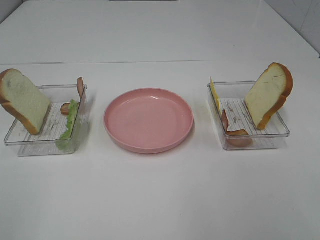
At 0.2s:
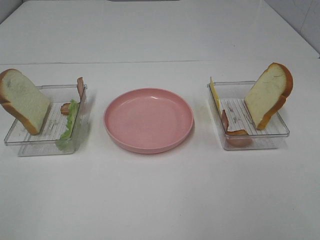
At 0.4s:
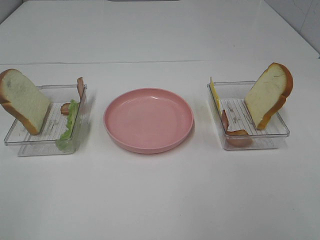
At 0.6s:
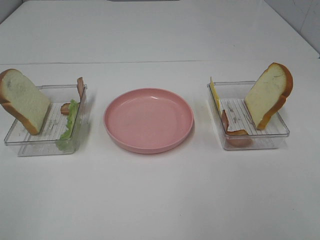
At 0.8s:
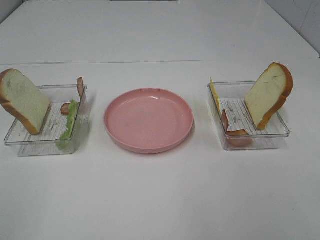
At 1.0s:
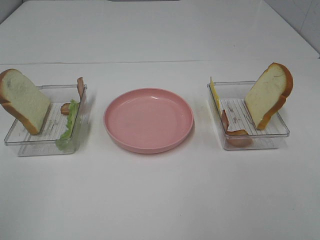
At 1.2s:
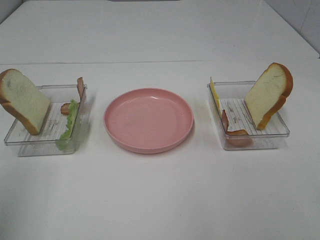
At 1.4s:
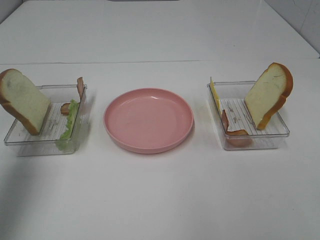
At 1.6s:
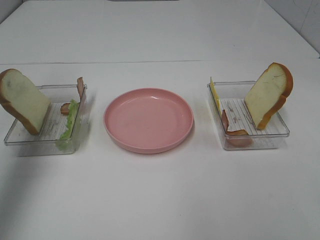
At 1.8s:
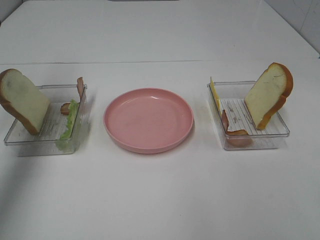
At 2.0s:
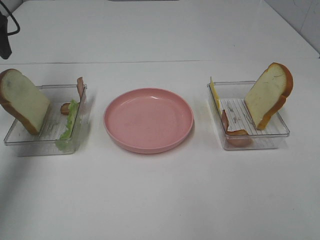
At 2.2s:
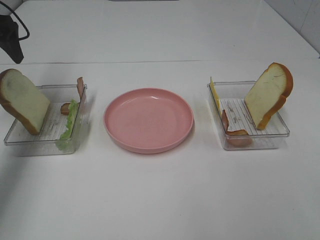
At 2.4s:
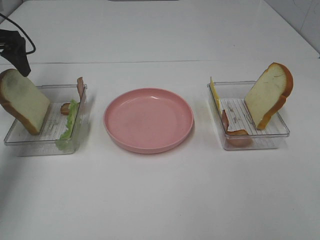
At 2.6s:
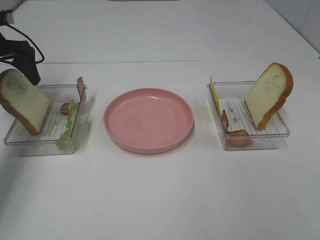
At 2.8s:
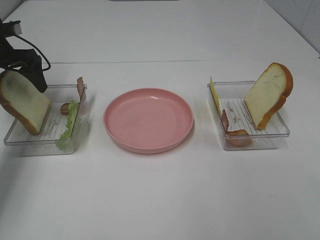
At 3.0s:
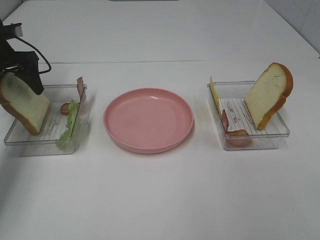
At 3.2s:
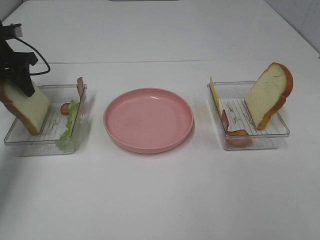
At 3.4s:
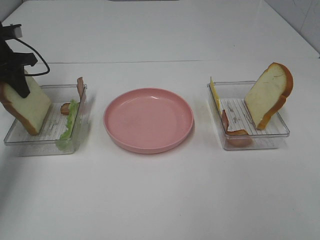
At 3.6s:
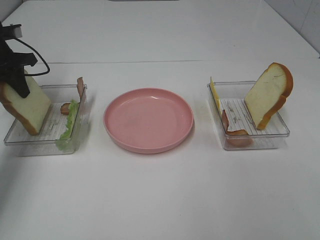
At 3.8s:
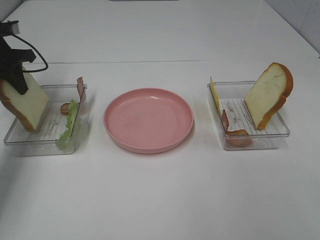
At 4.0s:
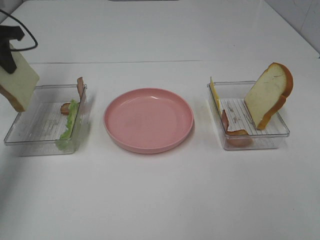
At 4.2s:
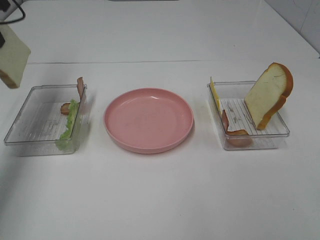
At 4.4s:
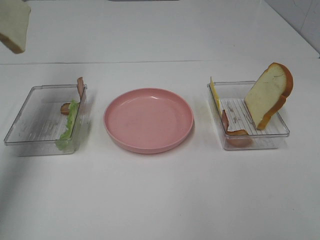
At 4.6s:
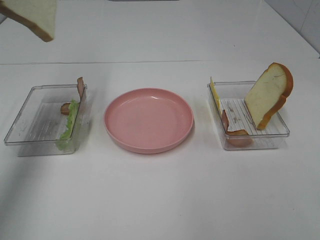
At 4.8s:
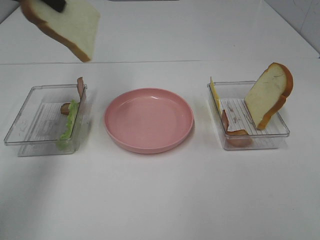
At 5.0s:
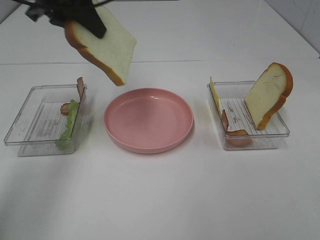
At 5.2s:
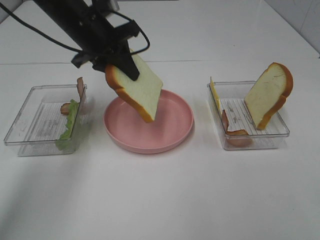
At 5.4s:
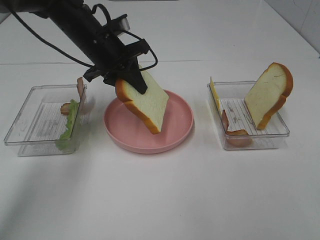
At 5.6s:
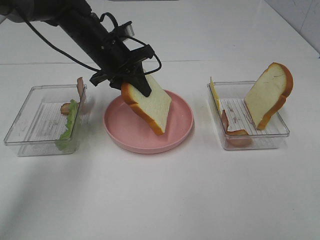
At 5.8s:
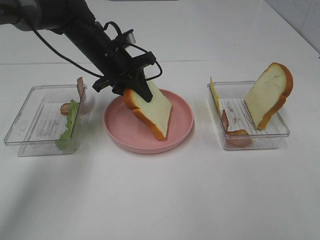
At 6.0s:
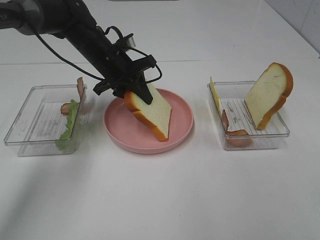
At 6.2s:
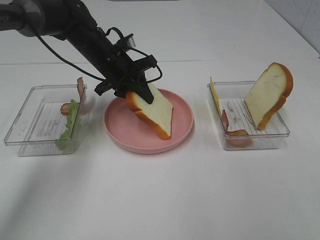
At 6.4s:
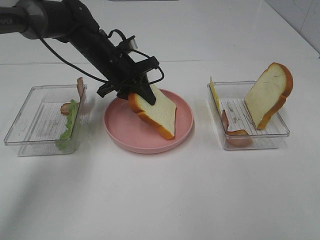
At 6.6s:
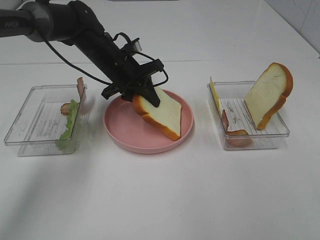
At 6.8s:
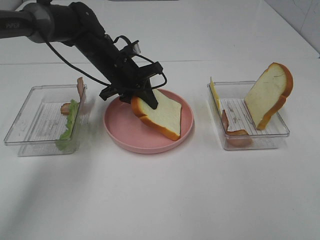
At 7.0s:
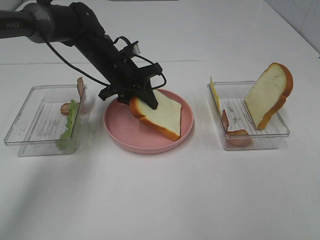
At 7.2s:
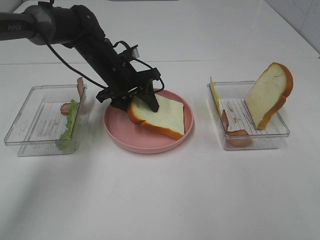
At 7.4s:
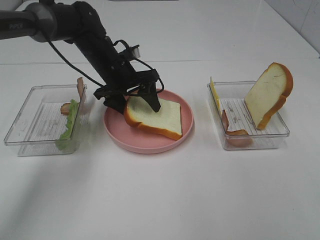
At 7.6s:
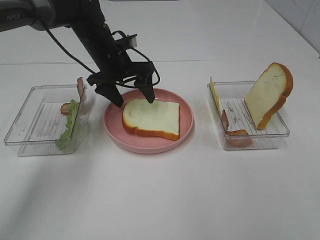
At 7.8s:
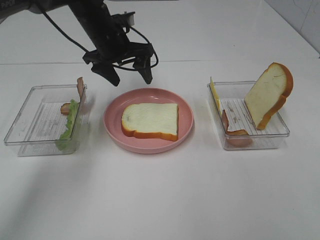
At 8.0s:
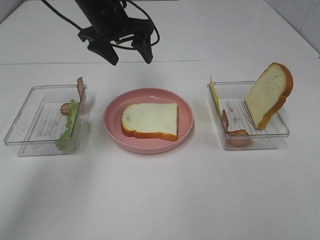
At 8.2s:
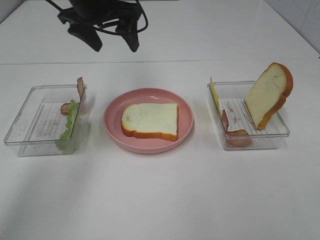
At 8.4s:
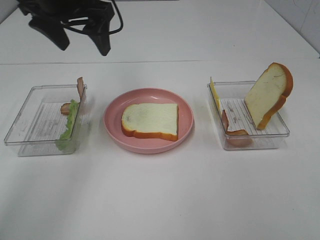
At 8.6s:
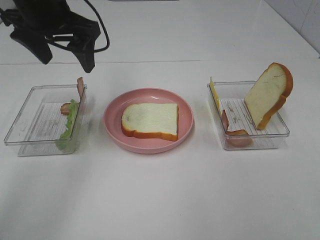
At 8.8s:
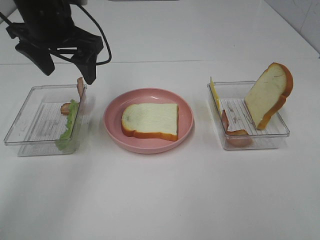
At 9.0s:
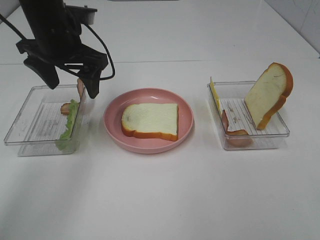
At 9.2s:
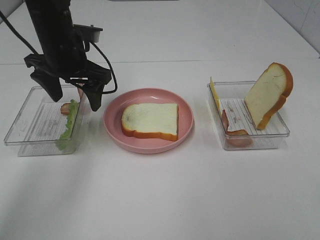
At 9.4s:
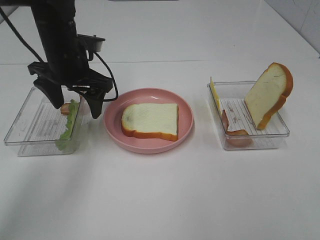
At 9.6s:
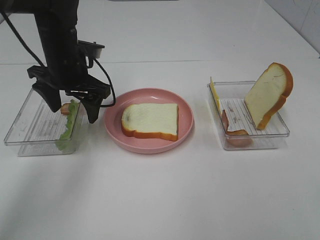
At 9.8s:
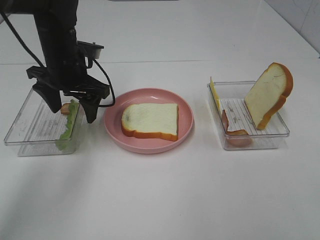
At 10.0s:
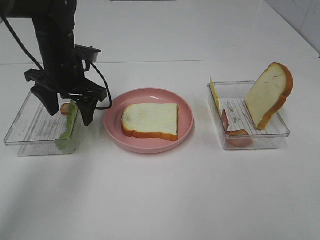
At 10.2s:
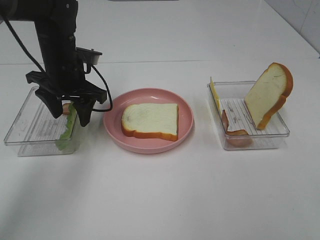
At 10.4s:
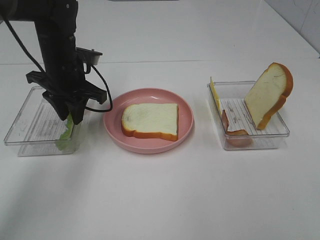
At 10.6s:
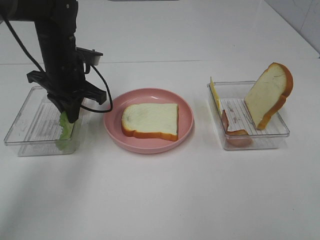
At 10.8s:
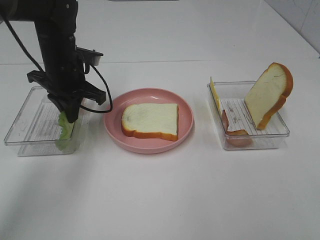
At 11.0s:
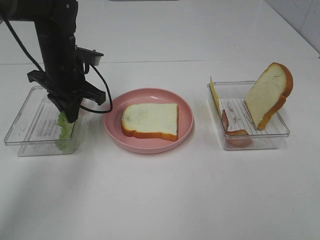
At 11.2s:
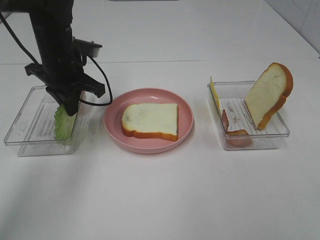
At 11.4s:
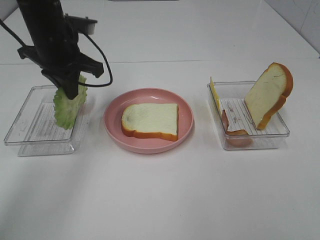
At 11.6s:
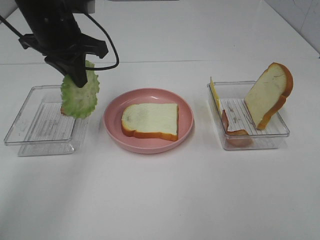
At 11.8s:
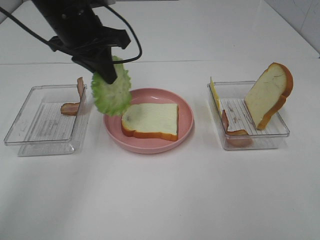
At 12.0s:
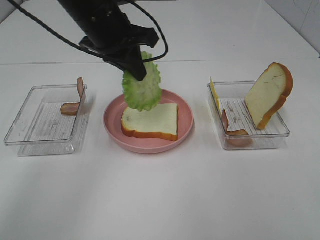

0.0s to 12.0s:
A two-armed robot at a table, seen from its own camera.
Task of the whole recording: Make sandwiches.
Step, 0.0s to 3.6s: Left hand:grab the bread slice.
Step, 3.8s to 7.6s: Left hand:place the bread slice on the plate.
Step, 7.8s to 10.6s: Left hand:grab the lettuce slice.
0.0s to 1.6s: The left gripper heads forward, covering some 30 cm.
1.6s to 3.0s: The left gripper heads downward and forward, covering some 25 cm.
3.0s to 4.4s: The left gripper shifts roughly 20 cm upward, and closes.
4.4s to 6.0s: The left gripper moves downward and to the right, some 30 cm.
6.0s to 7.6s: The left gripper opens up.
7.6s to 9.0s: The left gripper goes some 10 cm backward, upward and to the left.
9.0s to 10.4s: The left gripper goes about 5 cm downward, and closes its fingers.
10.4s to 12.0s: The left gripper shifts roughly 10 cm upward and to the right.

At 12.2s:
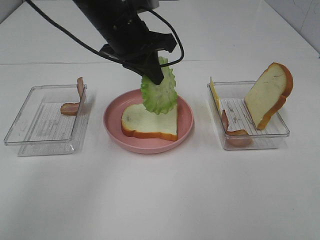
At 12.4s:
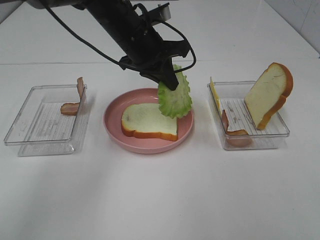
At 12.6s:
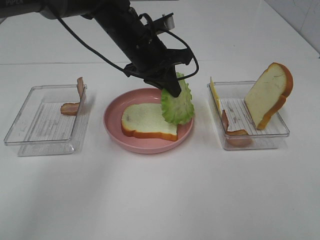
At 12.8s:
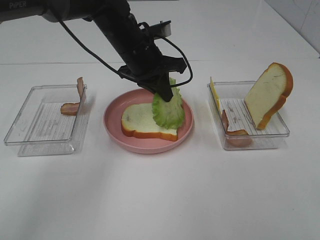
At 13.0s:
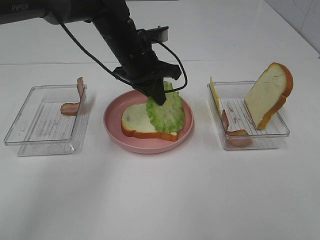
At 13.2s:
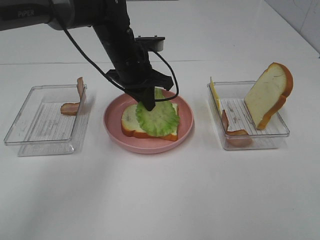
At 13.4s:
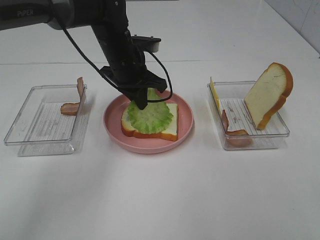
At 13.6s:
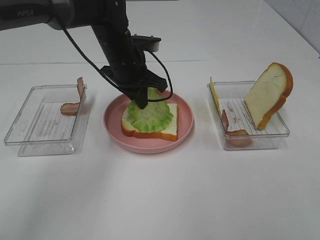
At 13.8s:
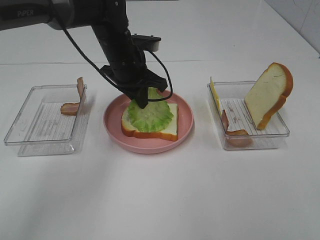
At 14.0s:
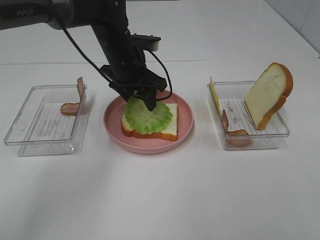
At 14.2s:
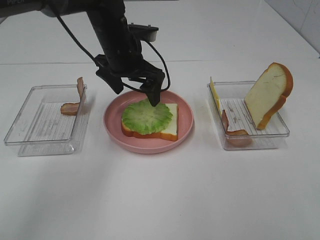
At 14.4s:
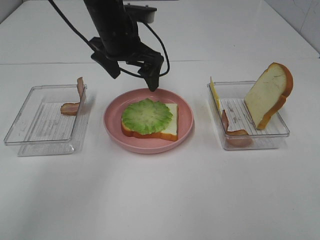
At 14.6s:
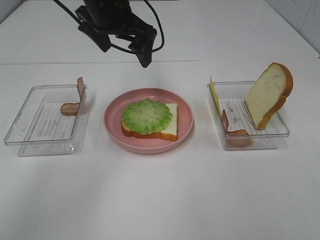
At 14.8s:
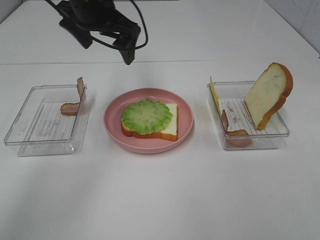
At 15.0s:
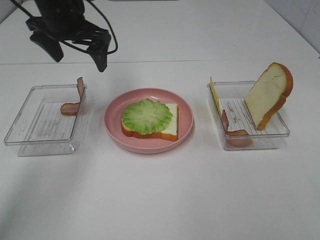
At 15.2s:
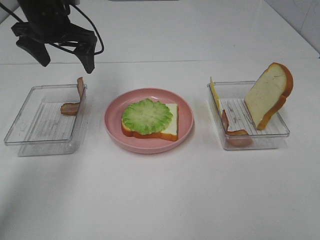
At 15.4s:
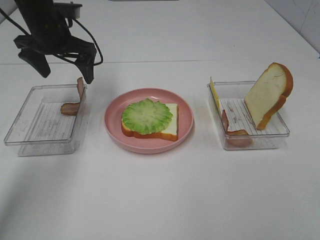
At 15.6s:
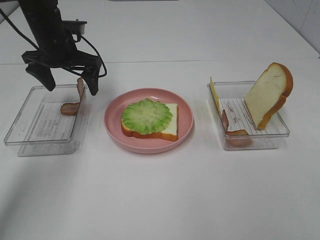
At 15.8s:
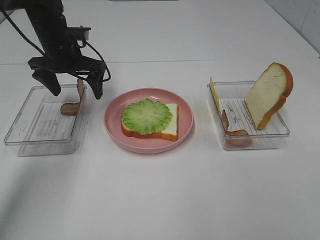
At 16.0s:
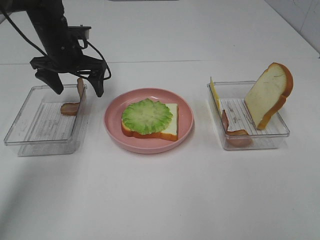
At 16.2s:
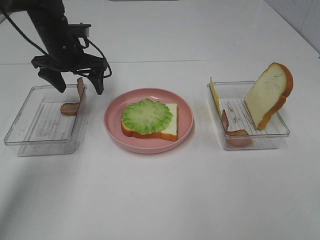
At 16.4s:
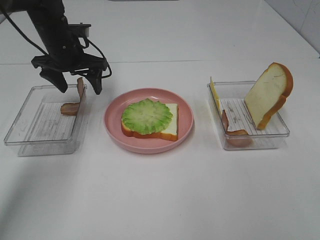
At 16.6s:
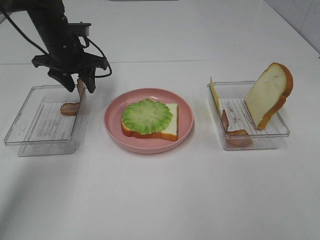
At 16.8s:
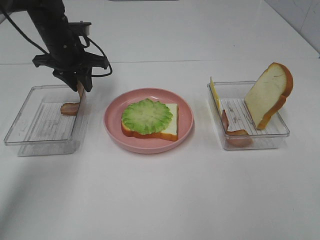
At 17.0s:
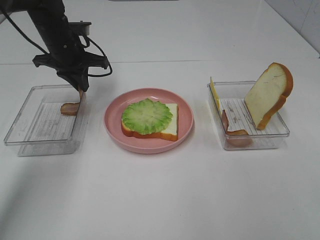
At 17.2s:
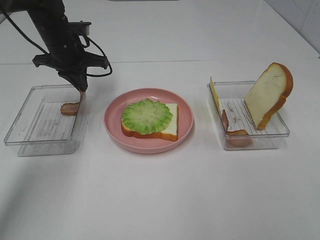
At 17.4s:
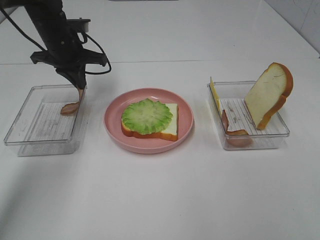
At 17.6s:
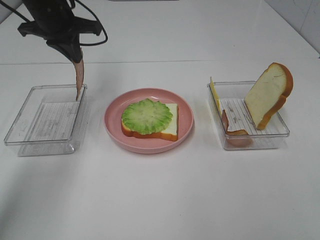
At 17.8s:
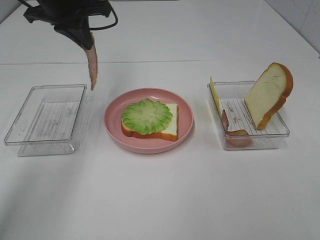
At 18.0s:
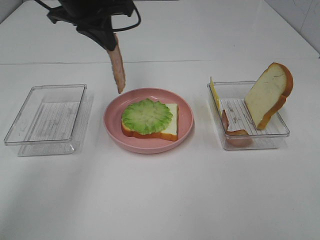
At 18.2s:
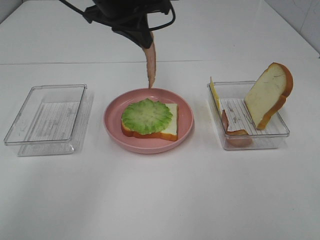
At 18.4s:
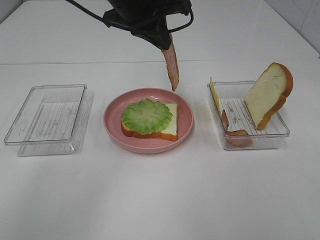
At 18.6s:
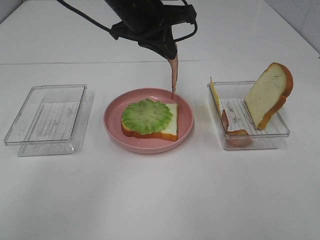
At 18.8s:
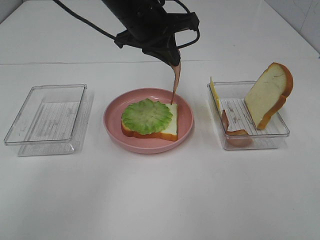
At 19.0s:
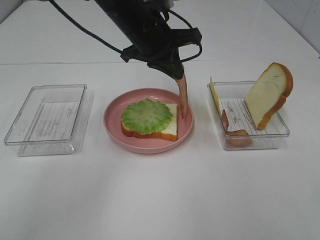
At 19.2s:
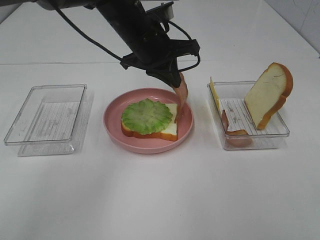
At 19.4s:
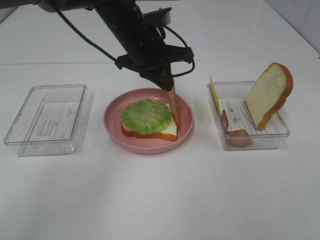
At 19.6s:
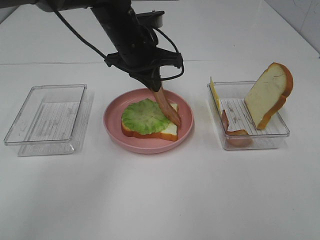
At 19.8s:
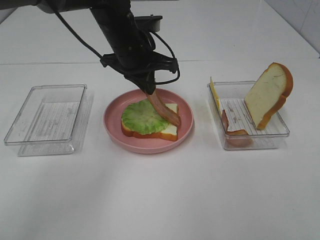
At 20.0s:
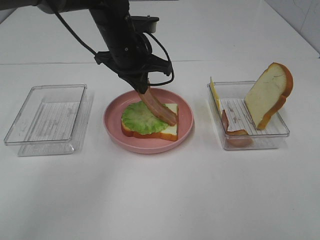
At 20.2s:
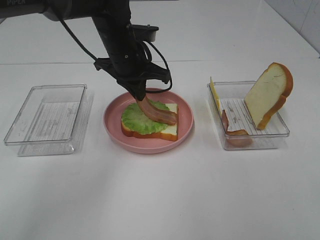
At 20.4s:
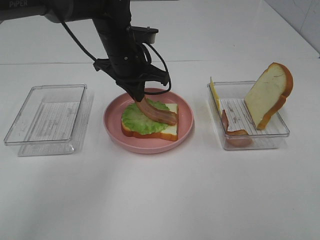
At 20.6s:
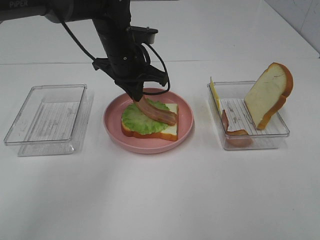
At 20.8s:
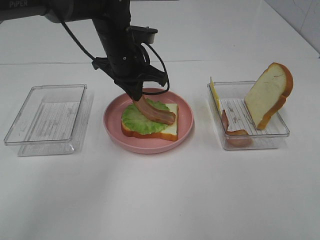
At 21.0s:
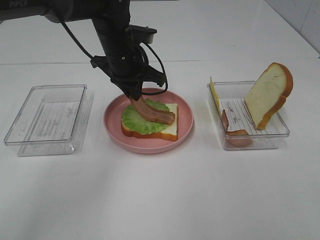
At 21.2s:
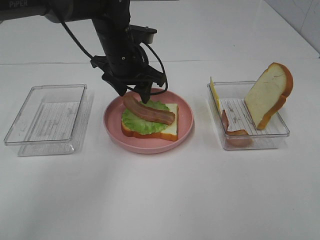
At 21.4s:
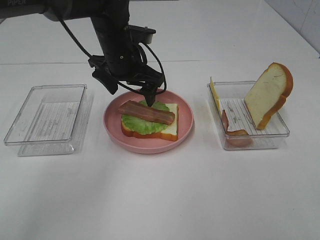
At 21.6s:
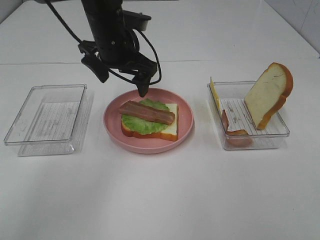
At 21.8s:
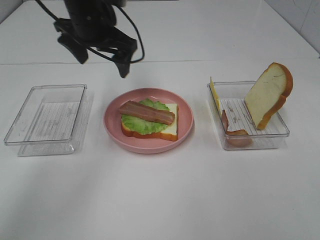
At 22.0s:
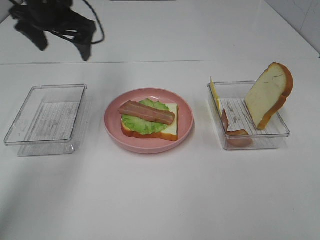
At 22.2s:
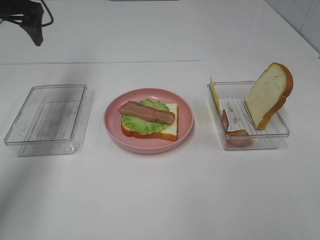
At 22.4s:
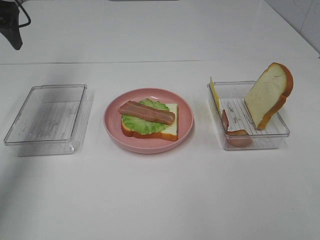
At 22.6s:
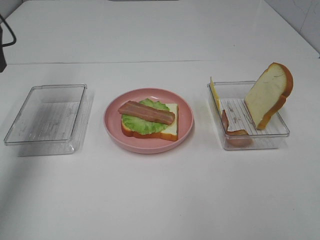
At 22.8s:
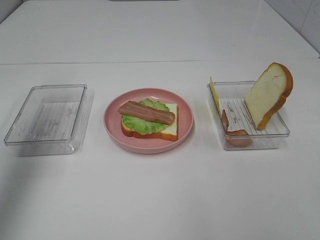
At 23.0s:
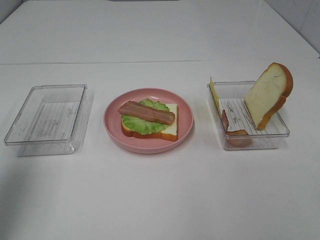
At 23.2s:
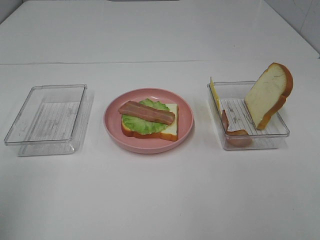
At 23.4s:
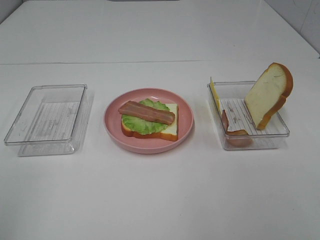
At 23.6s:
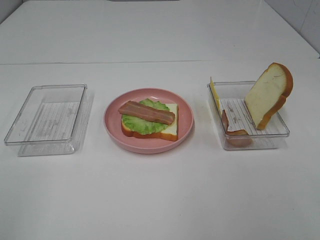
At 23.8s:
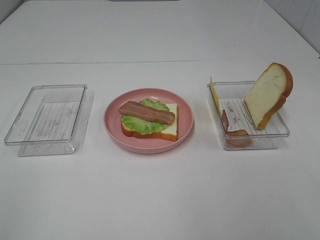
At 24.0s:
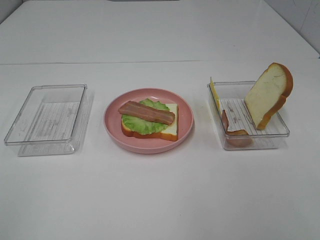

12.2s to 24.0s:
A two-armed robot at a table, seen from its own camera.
Task of the whole recording: Make sandwiches.
Step, 12.2s to 14.2s: Left hand:place the lettuce slice on the bread slice.
Step, 14.4s to 17.0s: Left hand:grab the bacon.
Step, 17.2s to 21.2s: Left hand:place bacon on lettuce slice.
12.2s to 13.6s: The left gripper is displaced downward by about 10 cm.
13.6s to 15.2s: The left gripper travels to the left and upward by about 15 cm, and opens.
15.2s to 16.6s: The left gripper shifts approximately 5 cm downward, and closes its fingers.
16.6s to 18.2s: The left gripper goes roughly 20 cm upward, to the right and backward, and closes up.
18.2s to 19.6s: The left gripper shifts roughly 10 cm downward.
19.6s to 21.0s: The grippers make only small movements.
21.0s to 22.6s: The left gripper heads to the left and upward, covering about 30 cm, and opens up.
22.6s to 24.0s: The left gripper heads backward, covering roughly 35 cm.
